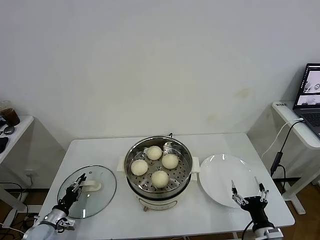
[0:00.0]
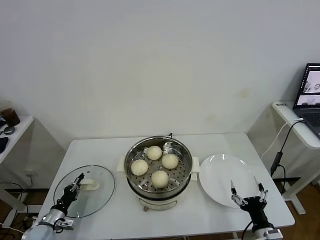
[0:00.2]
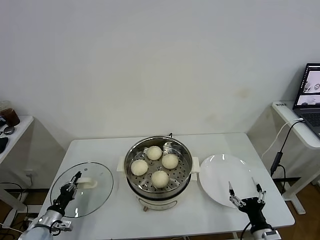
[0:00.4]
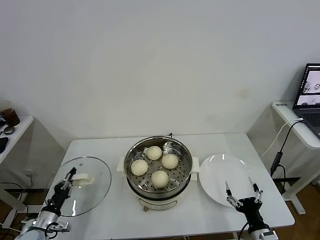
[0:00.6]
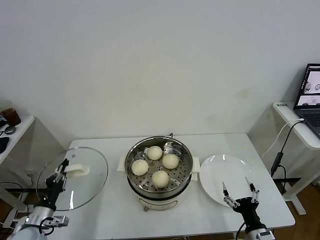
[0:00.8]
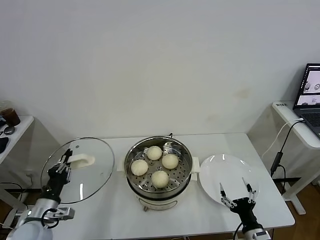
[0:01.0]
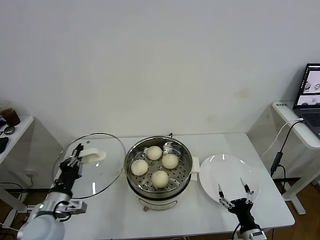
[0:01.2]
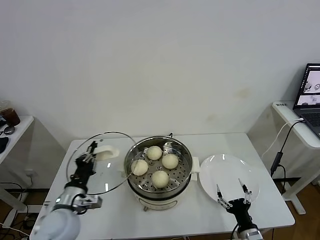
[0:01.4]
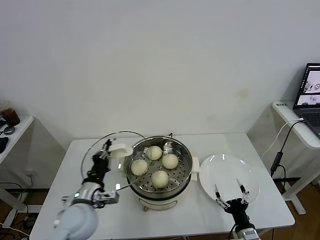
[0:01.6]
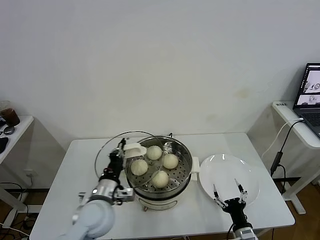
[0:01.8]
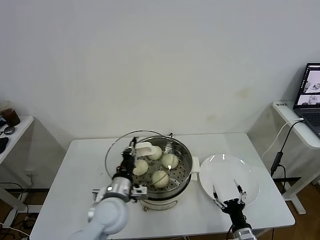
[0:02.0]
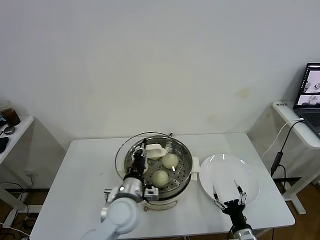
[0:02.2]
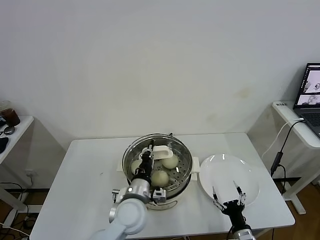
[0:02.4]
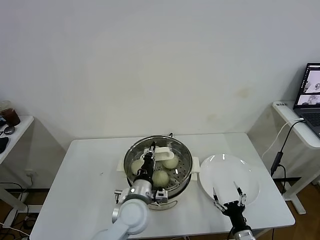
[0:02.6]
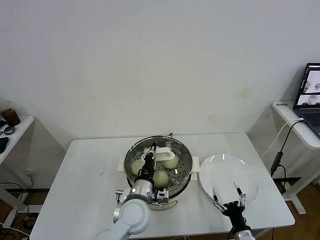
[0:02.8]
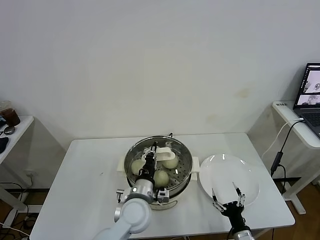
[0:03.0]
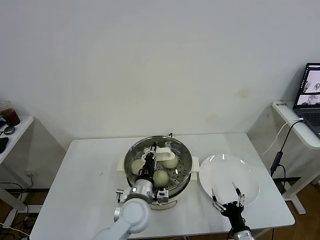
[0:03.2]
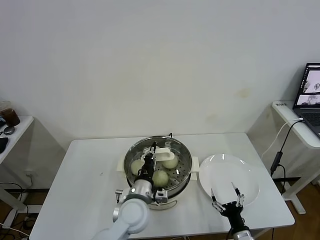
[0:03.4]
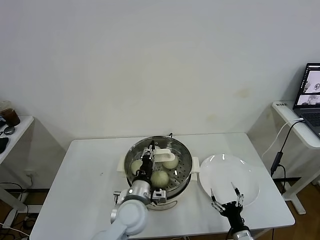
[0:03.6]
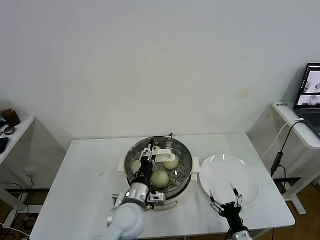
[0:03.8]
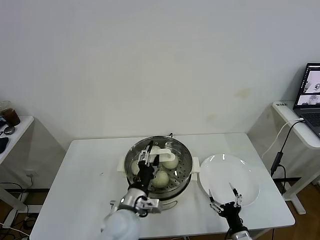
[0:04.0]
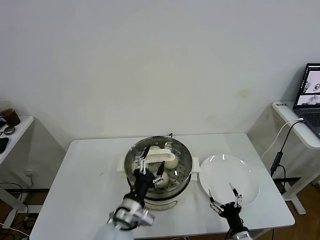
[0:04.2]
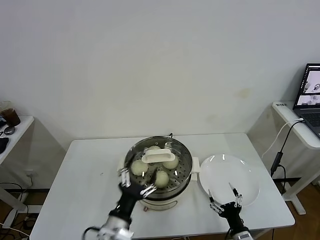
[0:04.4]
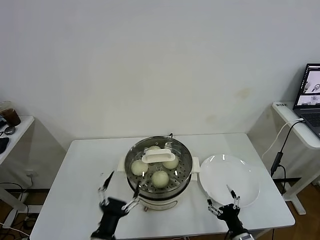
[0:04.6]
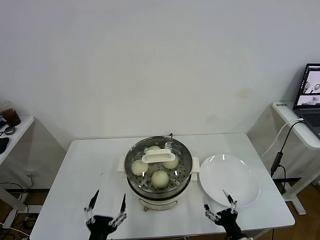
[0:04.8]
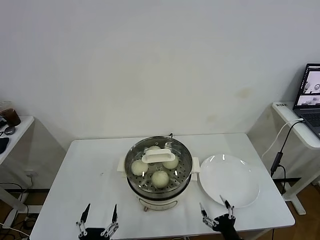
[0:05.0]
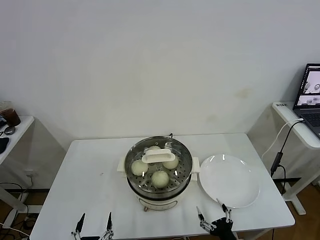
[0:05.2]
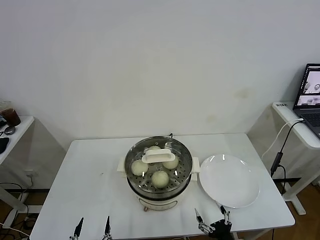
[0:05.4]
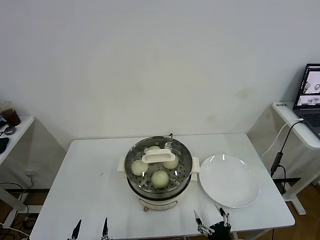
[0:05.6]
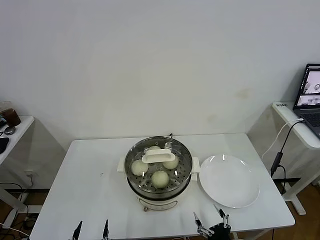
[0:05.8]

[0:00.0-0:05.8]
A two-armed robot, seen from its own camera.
Task of the whole recording: take steamed baozi put them in steamer.
Step, 0:00.4 to 0:04.0: Place the pot lid on the steamer with left gripper.
0:00.0 to 0:01.4: The left gripper is displaced upward and to the right by about 25 cm.
0:01.4 to 0:02.8: The left gripper moves to the right, roughly 20 cm.
0:02.8 to 0:04.4: The left gripper moves backward and to the left, about 10 cm, and opens up.
0:04.4 to 0:05.8: The right gripper moves backward, roughly 5 cm. Meanwhile the left gripper is displaced backward, downward and to the left by some 20 cm.
